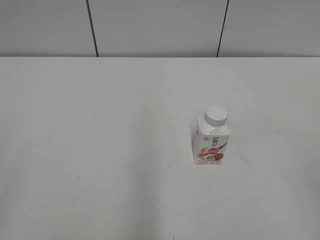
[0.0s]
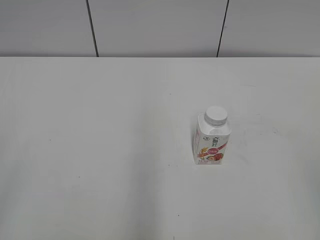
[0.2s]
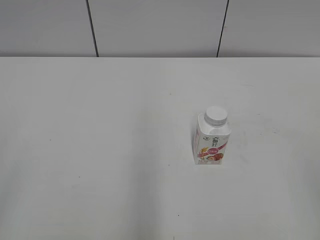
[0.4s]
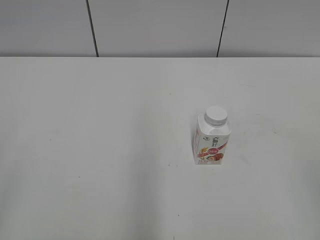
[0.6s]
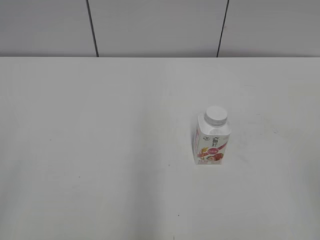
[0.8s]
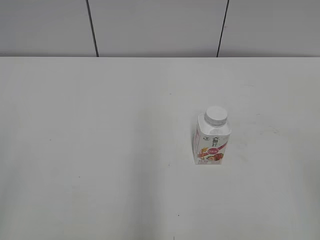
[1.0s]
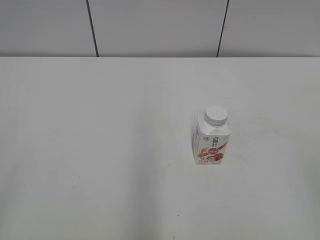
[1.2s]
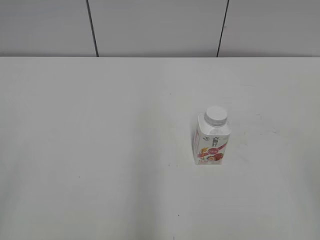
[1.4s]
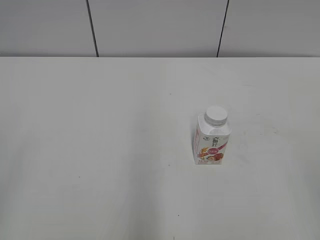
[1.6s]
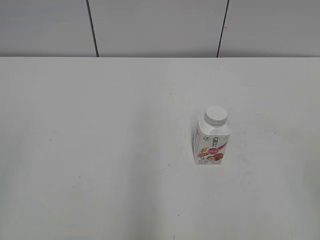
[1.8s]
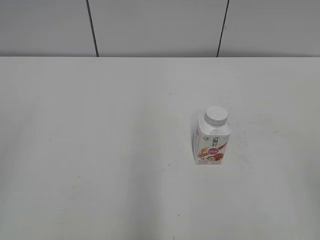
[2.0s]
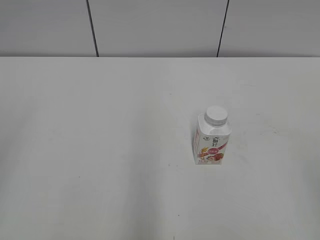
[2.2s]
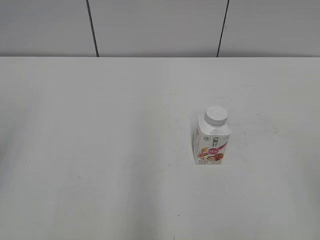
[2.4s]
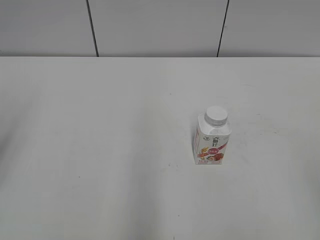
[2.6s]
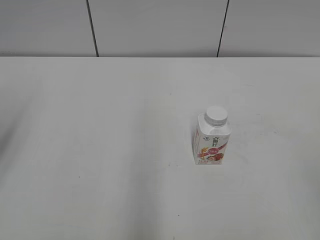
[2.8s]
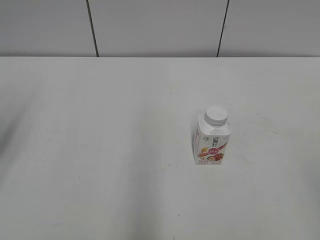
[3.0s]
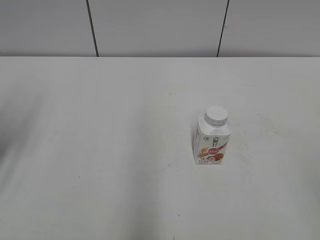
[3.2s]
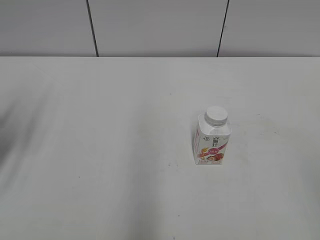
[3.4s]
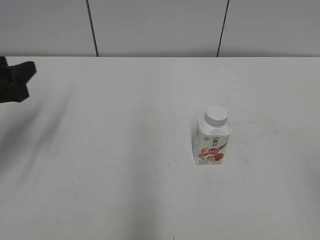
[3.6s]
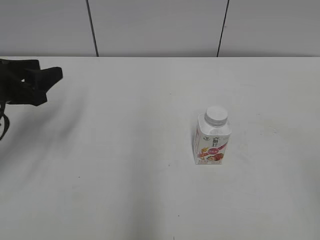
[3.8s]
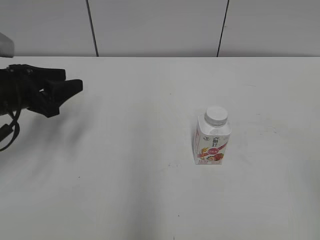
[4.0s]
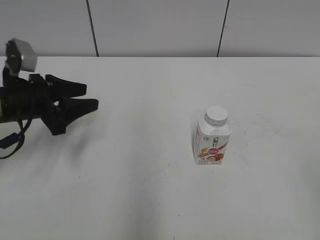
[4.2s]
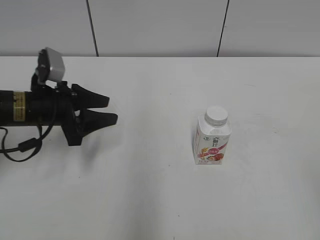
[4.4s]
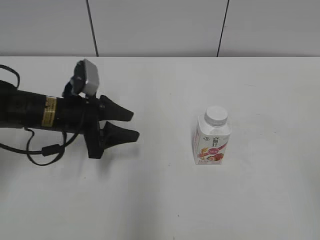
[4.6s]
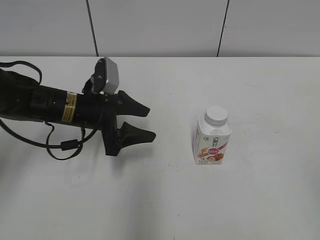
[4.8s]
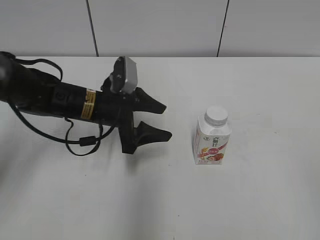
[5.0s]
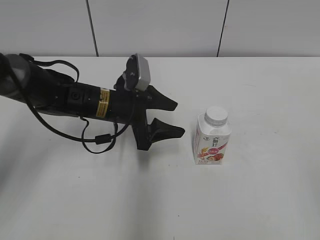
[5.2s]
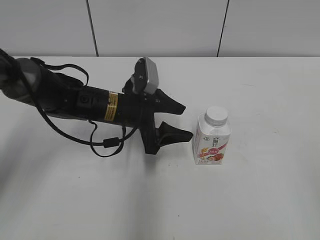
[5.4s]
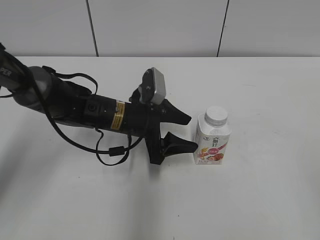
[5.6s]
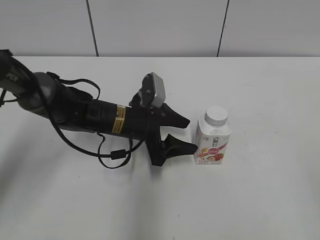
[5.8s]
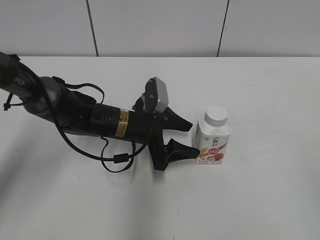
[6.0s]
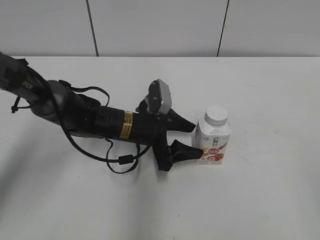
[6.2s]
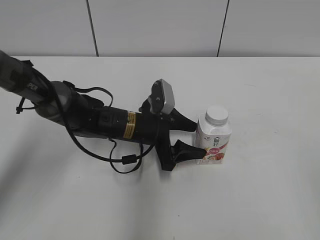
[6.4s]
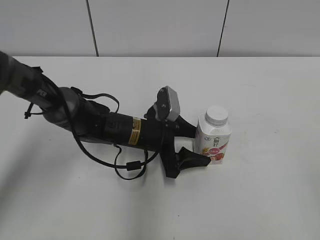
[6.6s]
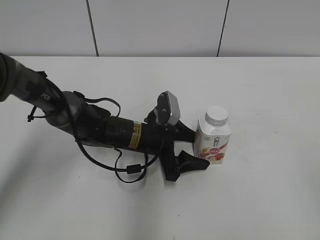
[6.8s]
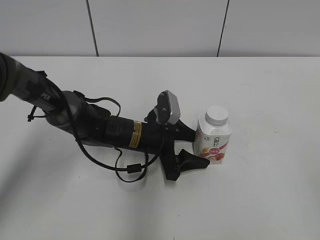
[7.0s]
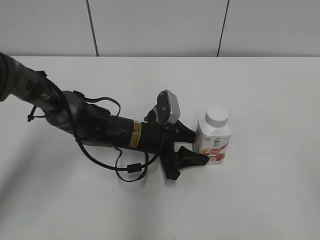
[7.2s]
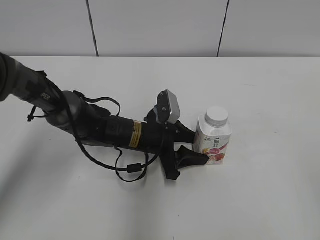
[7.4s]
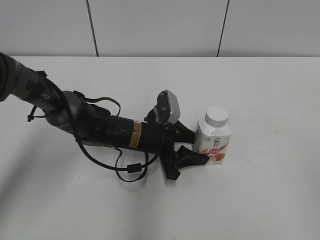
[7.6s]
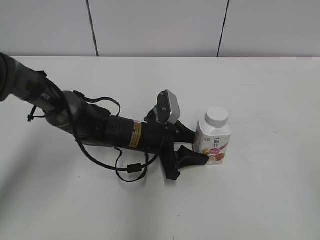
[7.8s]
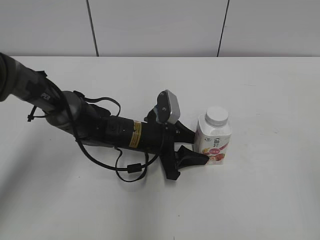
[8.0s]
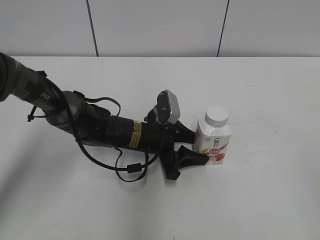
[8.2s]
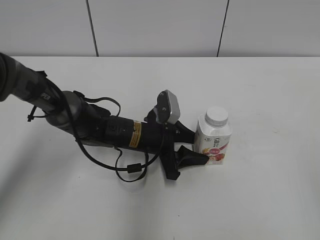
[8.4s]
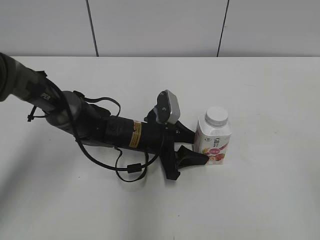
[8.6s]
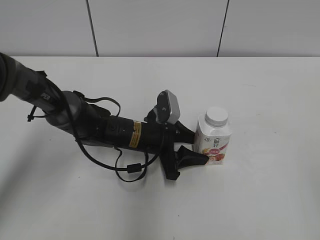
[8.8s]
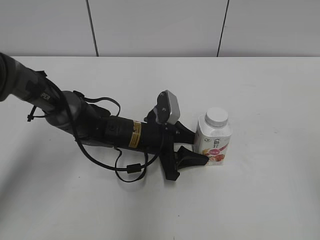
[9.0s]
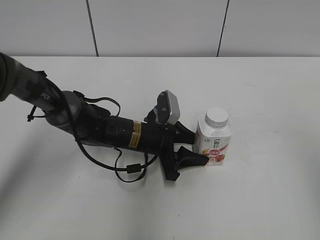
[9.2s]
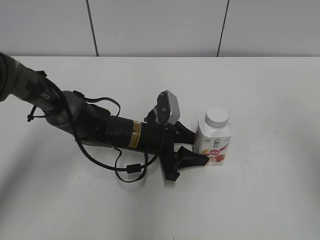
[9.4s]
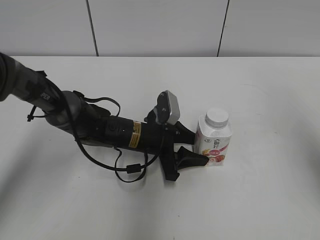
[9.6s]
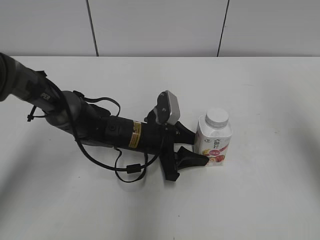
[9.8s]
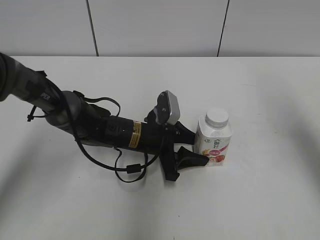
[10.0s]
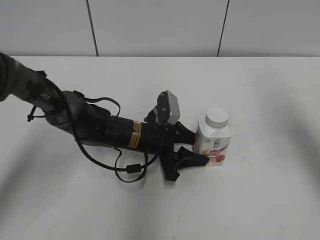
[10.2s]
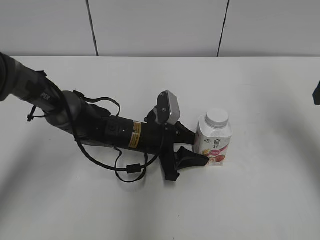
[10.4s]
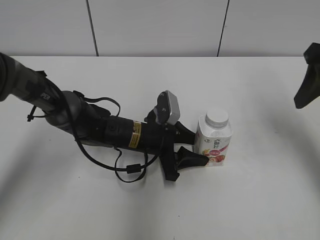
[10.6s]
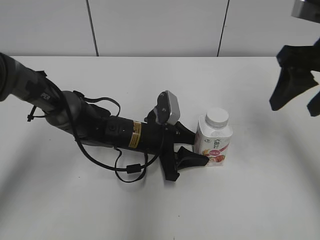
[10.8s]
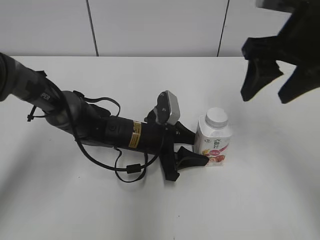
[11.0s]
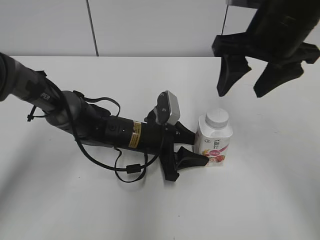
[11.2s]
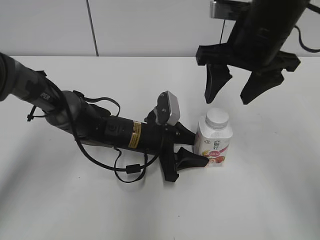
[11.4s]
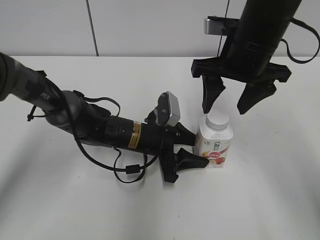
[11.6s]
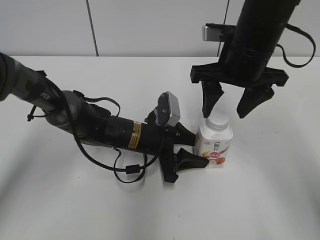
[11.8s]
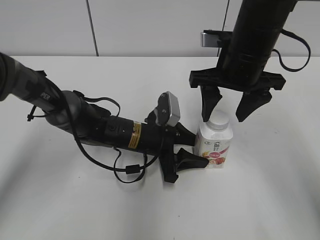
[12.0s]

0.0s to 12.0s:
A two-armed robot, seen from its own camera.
Step, 0.0s to 7.4s: Grab the Yili Changqing with the left hand.
3.0s to 4.4s: The left gripper moves downward, forward and to the right, approximately 20 cm.
4.4s to 6.0s: The left gripper heads to the right, covering approximately 15 cm, and opens its fingers.
6.0s to 7.6s: The left gripper closes its fingers.
9.0s to 10.4s: The right gripper moves forward, approximately 25 cm, and opens up.
10.4s to 12.0s: The right gripper moves to the left, downward and forward, about 20 cm.

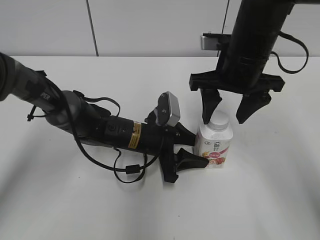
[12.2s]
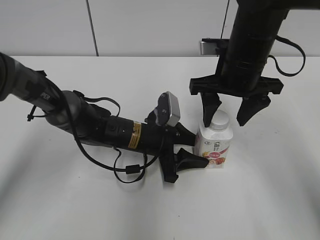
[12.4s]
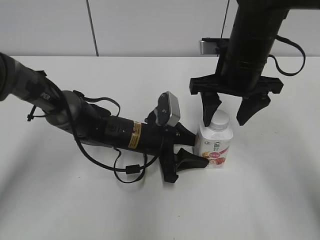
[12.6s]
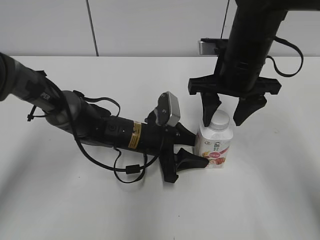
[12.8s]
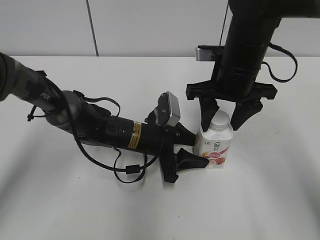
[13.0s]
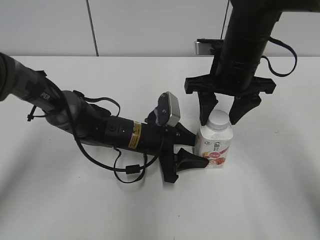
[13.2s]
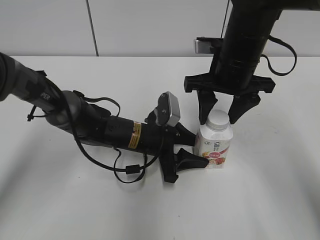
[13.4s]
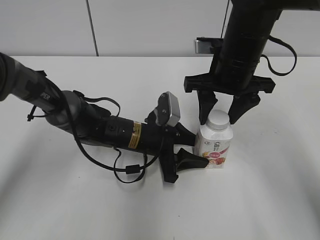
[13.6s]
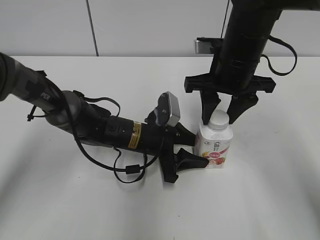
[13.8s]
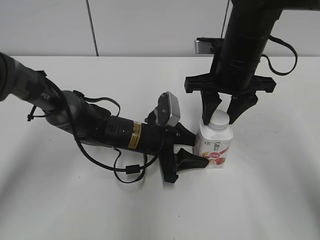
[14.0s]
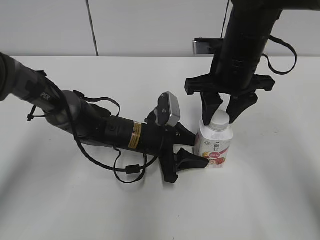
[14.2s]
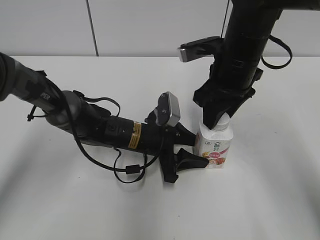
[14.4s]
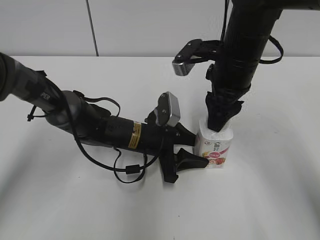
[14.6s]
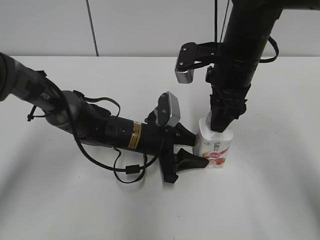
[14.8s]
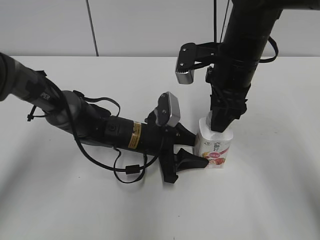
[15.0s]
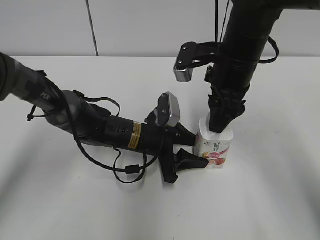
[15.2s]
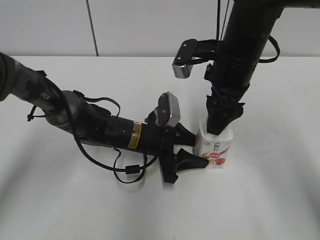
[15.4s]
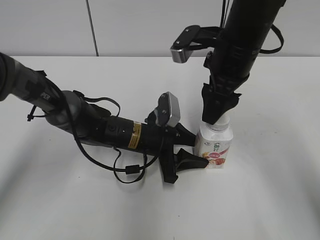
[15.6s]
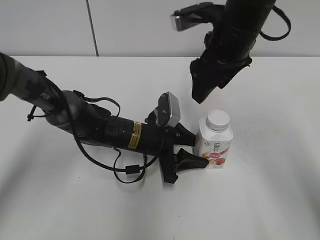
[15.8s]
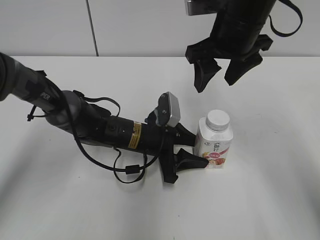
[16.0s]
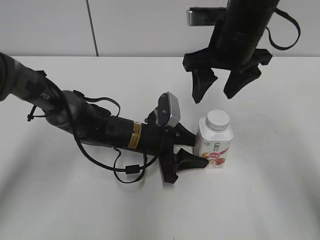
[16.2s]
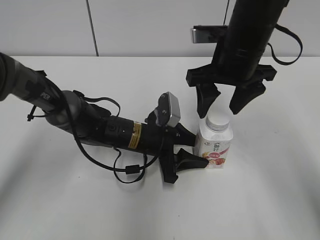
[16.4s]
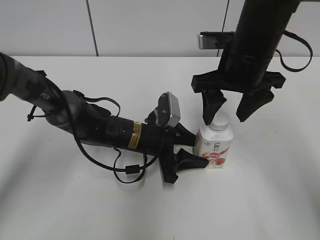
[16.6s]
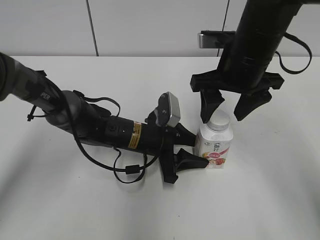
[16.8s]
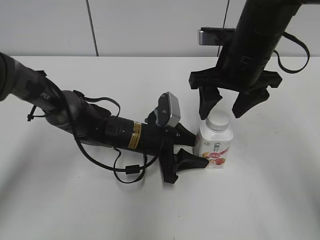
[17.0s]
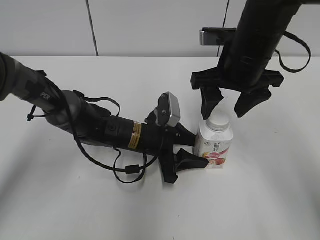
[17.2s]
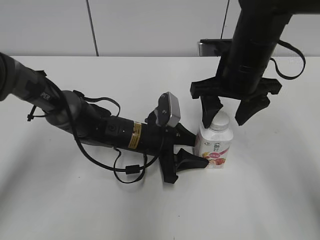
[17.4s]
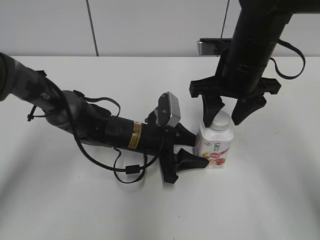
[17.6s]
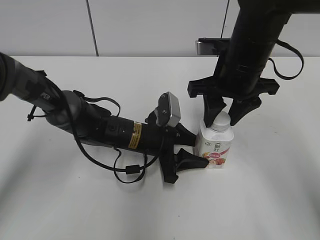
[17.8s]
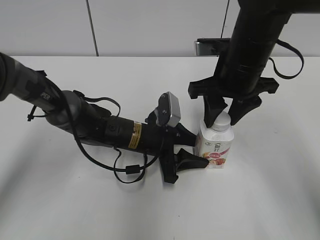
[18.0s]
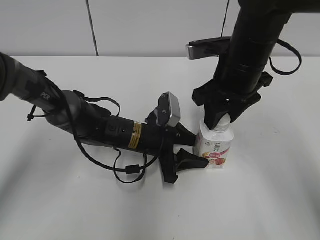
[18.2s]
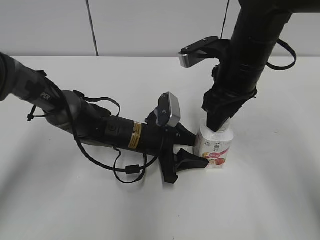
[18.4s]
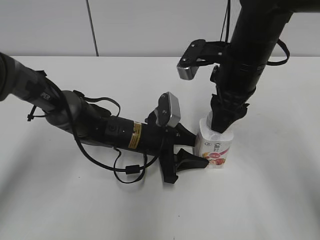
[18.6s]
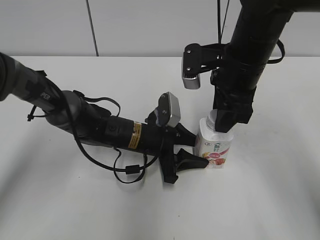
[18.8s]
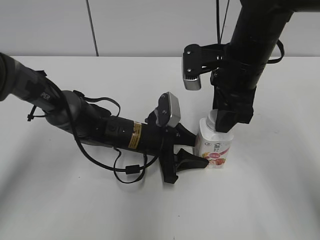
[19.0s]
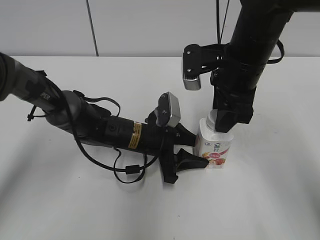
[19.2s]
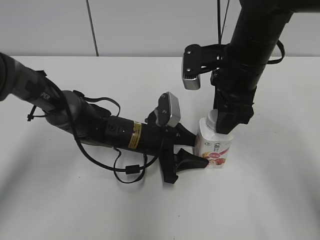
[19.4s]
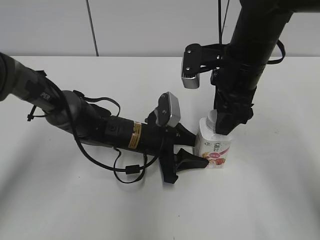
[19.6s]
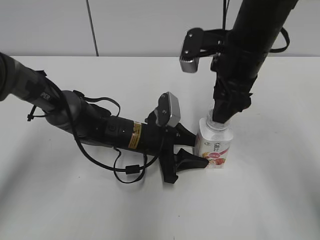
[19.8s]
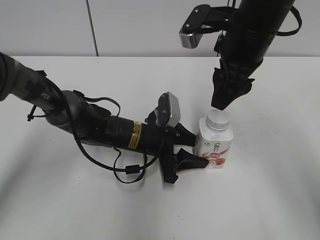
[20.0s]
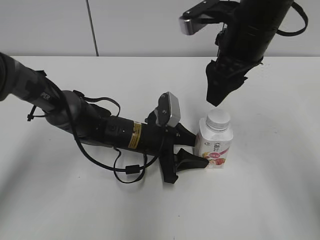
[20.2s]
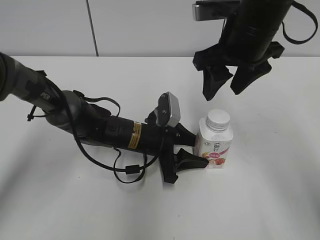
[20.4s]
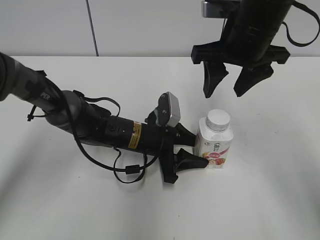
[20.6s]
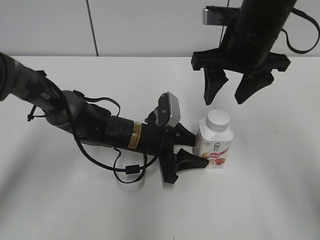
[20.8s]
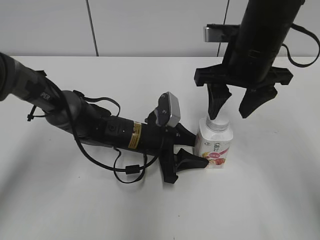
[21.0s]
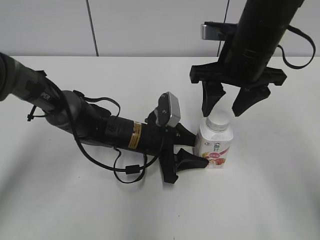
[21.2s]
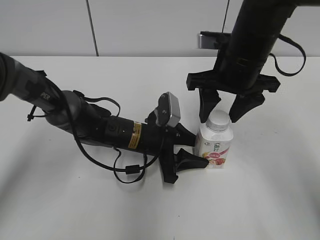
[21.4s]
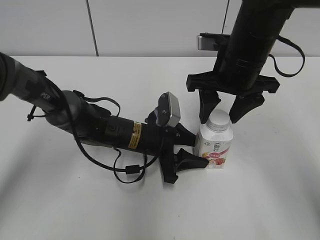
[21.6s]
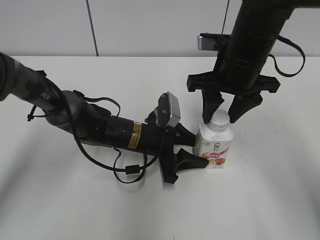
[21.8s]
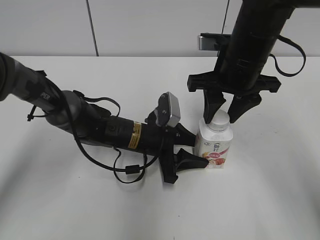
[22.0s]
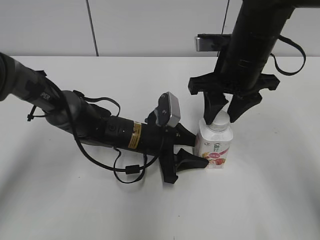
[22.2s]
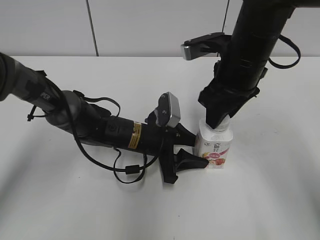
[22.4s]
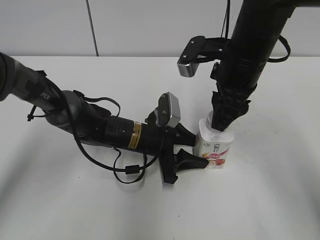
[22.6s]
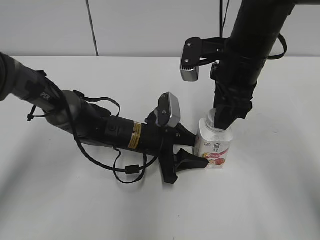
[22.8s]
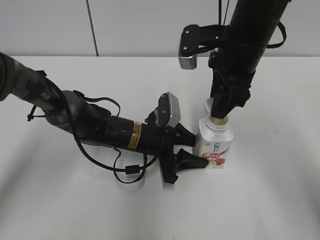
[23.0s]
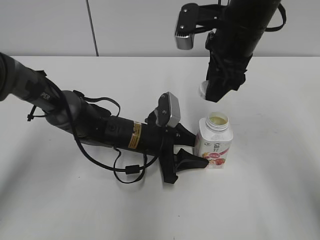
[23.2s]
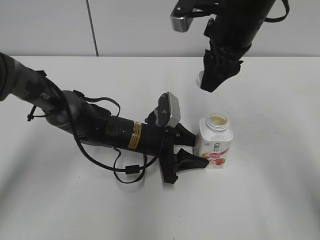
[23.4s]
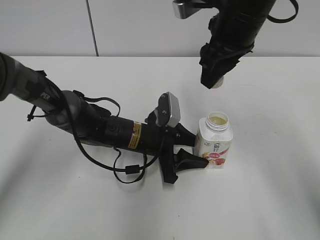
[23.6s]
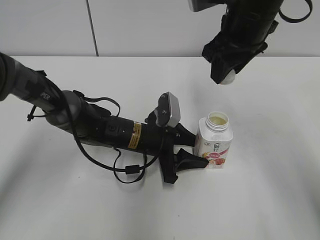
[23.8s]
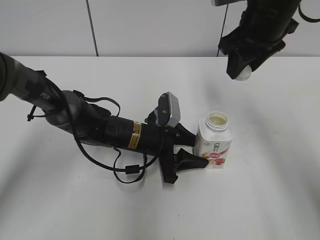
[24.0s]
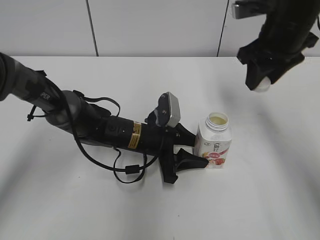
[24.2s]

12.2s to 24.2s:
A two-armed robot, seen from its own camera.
12.2s to 13.8s: The right gripper closes up.
15.2s to 16.6s: The right gripper opens its fingers.
16.6s to 18.2s: The right gripper closes its fingers.
18.2s to 19.8s: The right gripper opens its fingers.
21.2s to 22.6s: The right gripper closes its fingers.
22.6s to 24.2s: The right gripper shifts roughly 5 cm to the right.
